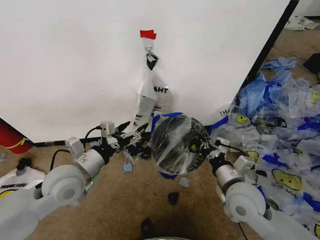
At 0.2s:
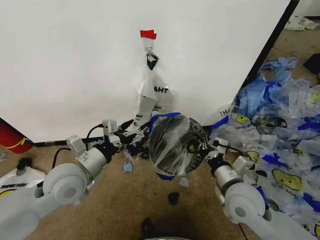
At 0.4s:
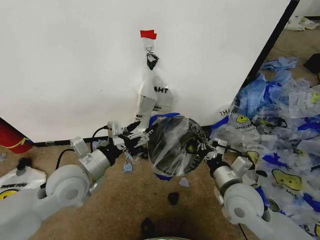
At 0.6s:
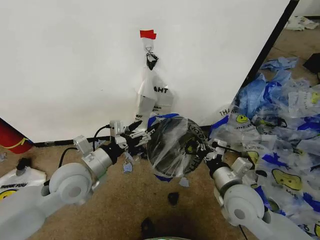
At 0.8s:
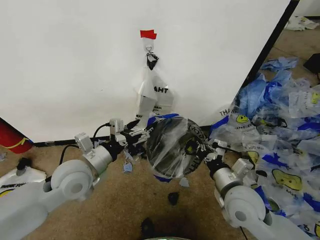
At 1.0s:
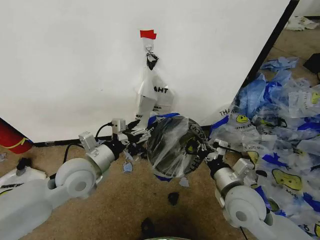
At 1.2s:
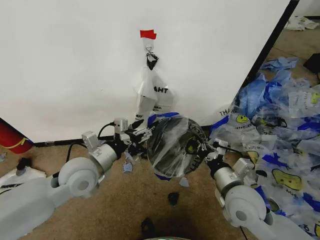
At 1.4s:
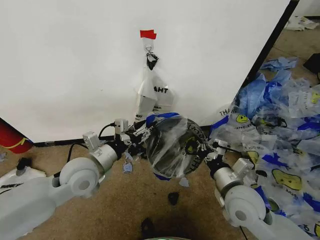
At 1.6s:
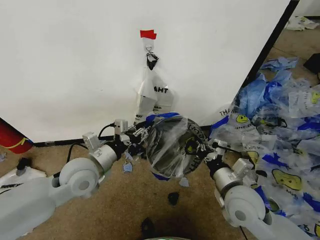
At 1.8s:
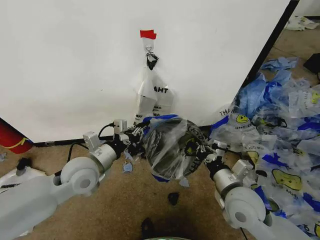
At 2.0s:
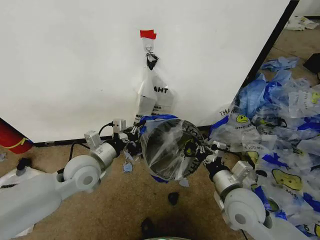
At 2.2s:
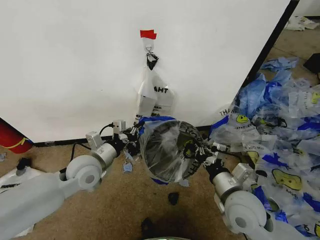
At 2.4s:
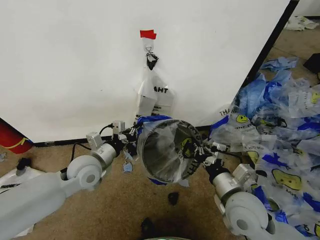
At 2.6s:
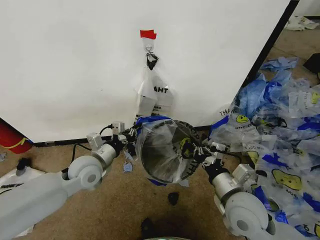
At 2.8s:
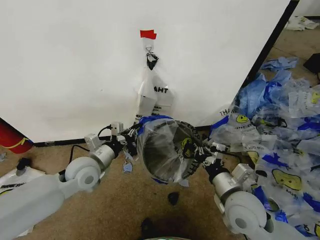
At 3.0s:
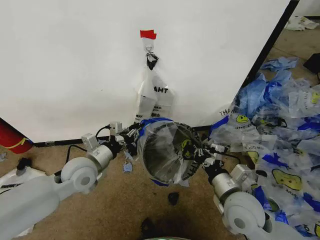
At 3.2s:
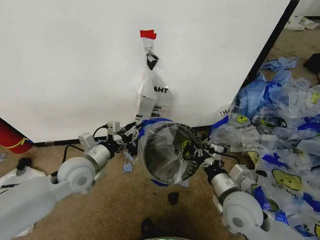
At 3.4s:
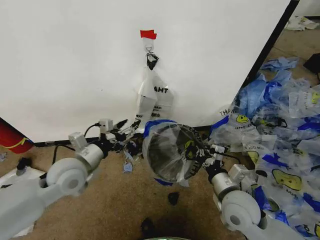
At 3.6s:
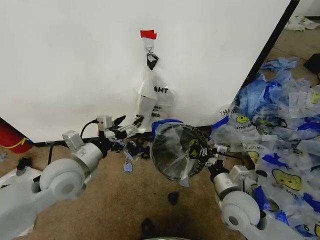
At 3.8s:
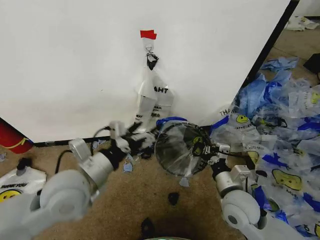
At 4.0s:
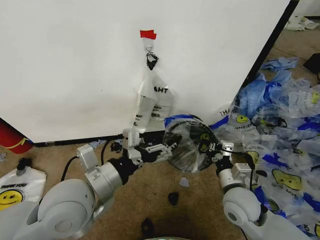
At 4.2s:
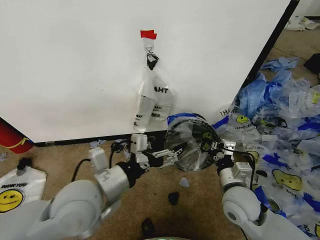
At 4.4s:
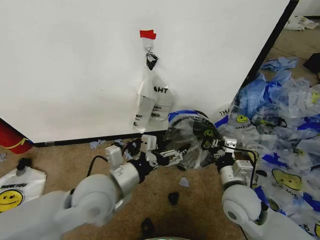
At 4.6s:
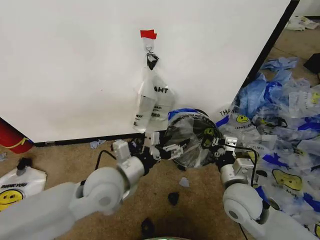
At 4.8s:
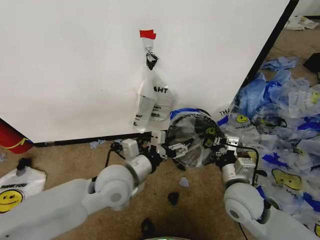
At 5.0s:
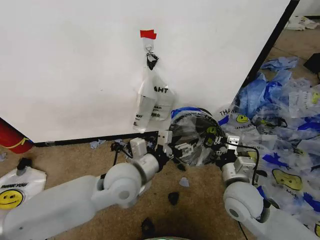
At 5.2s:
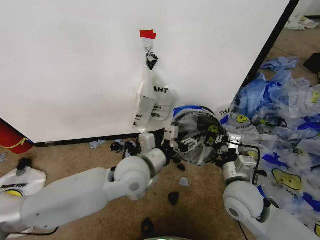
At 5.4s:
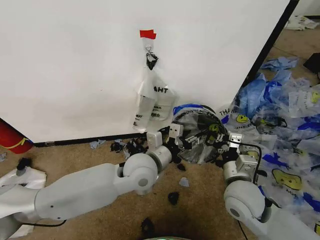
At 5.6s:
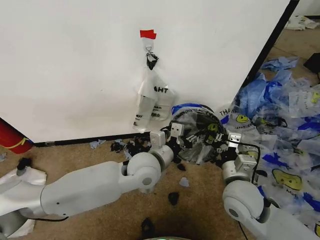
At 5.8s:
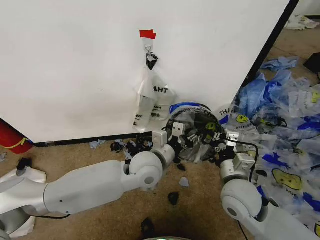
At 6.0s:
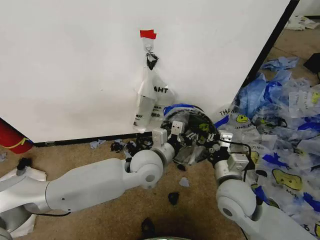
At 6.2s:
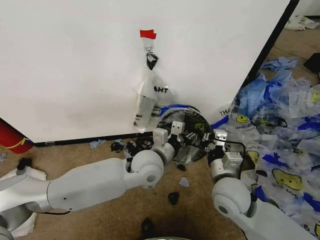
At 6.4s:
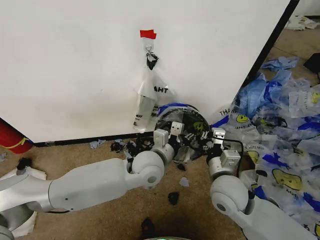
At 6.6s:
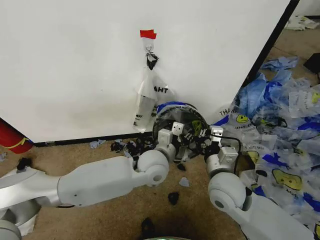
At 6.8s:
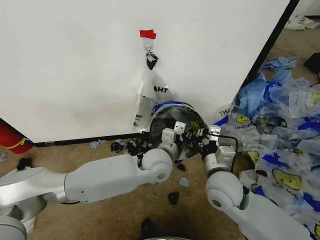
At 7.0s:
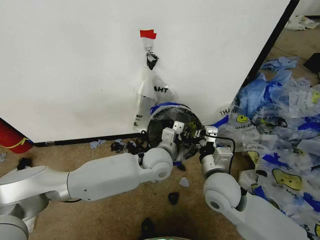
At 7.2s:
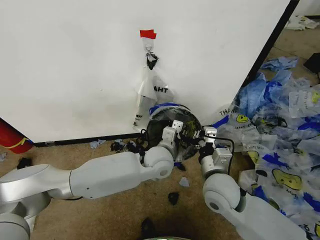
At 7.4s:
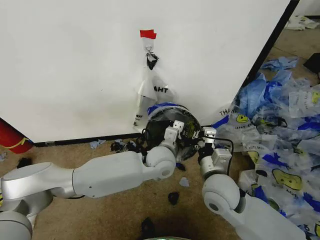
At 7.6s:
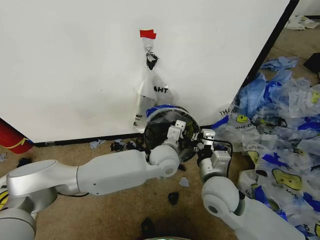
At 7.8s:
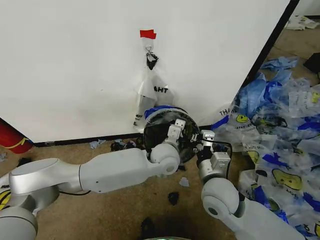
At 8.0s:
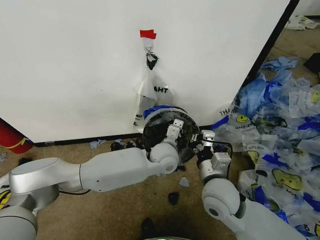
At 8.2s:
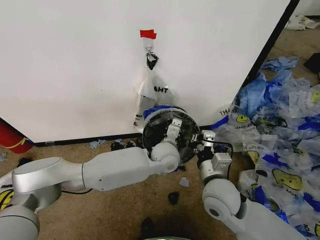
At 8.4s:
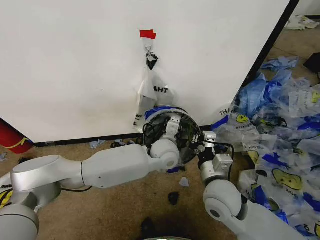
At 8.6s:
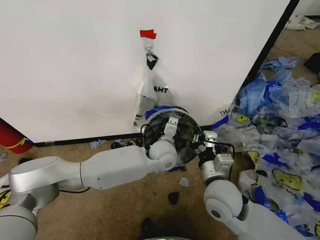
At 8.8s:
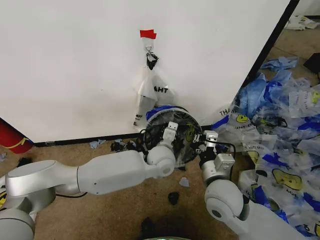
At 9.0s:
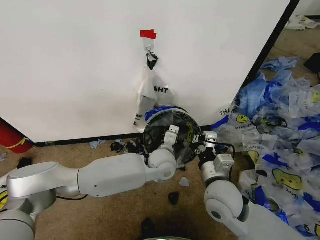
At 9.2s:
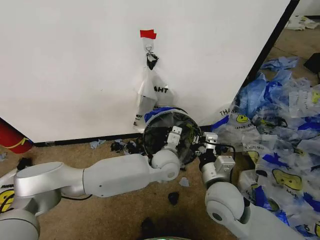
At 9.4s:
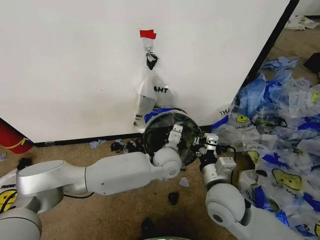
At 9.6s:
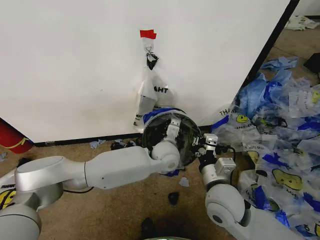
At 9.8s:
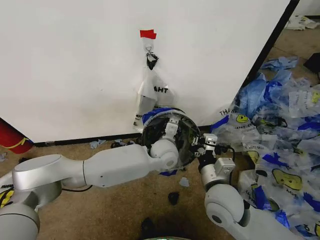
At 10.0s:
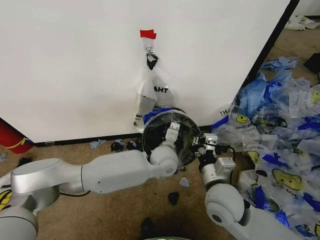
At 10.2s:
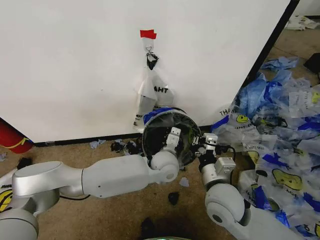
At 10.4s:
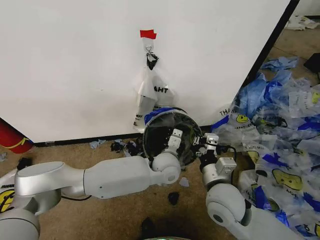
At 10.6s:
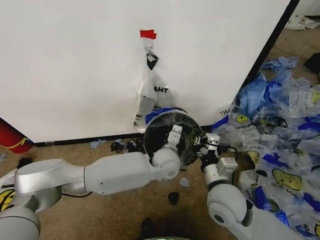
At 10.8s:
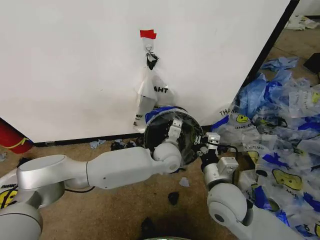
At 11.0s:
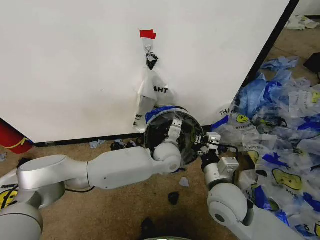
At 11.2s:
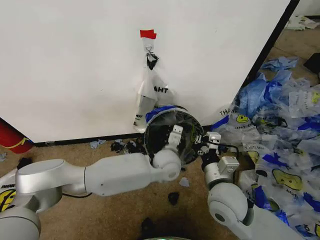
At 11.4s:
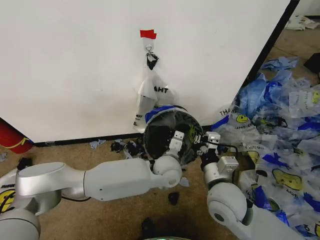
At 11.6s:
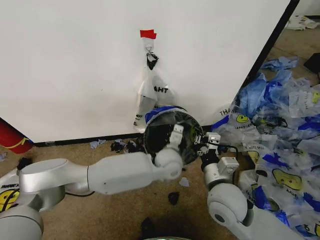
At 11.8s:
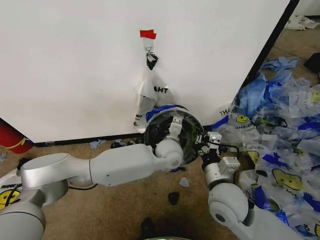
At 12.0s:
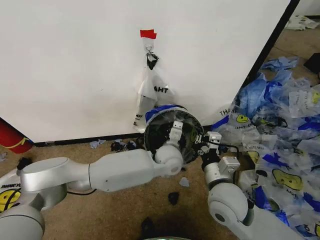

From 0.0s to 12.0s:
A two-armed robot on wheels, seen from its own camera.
Task of the whole recording: Pick up the garbage bag from the wall and place it over the trash bin.
From 0.0s to 1.6s: The left gripper closes its fingers.
From 1.6s to 3.0s: The grippers stay close to where they were, moving slightly.
From 3.0s to 4.4s: The left gripper goes about 15 cm to the right, backward and upward, and opens up.
From 4.4s to 6.0s: The left gripper heads to the right and forward, covering roughly 15 cm, and closes up.
From 6.0s to 7.6s: The left gripper shifts about 5 cm to the right.
From 7.6s to 12.0s: The grippers move only a little.

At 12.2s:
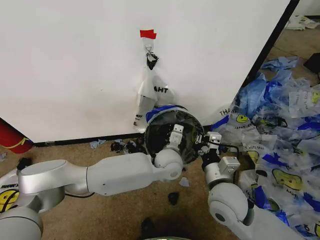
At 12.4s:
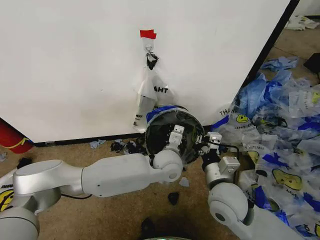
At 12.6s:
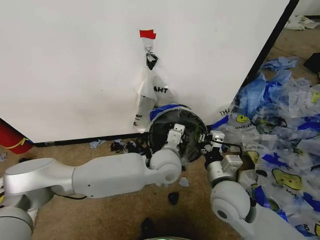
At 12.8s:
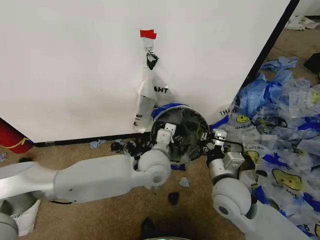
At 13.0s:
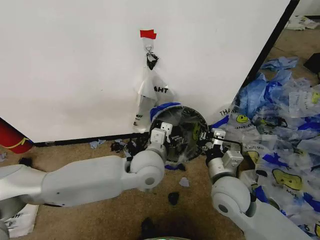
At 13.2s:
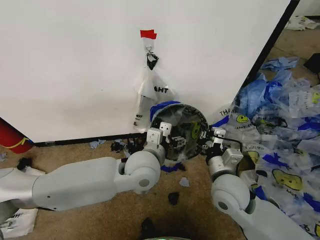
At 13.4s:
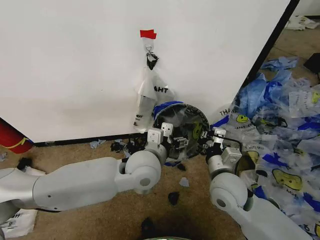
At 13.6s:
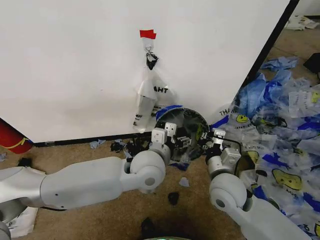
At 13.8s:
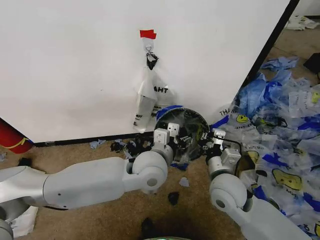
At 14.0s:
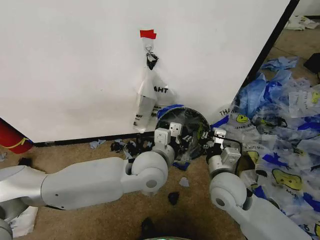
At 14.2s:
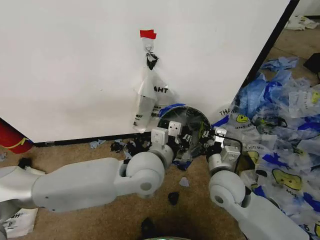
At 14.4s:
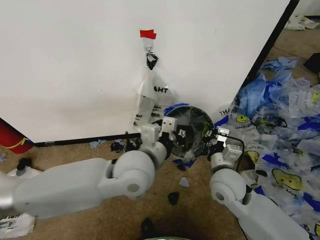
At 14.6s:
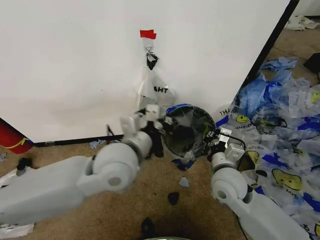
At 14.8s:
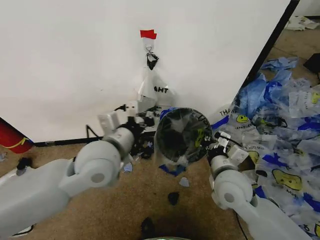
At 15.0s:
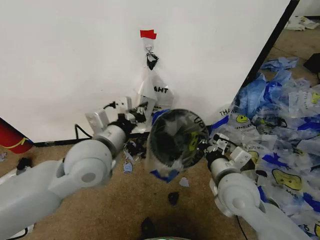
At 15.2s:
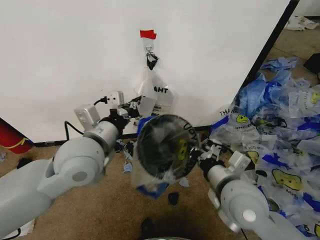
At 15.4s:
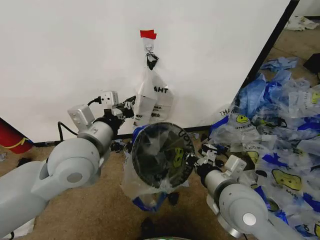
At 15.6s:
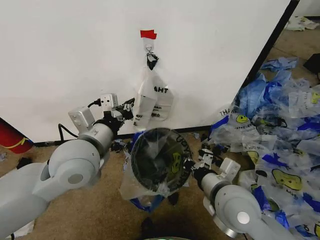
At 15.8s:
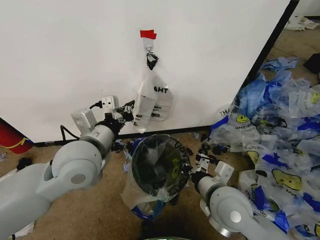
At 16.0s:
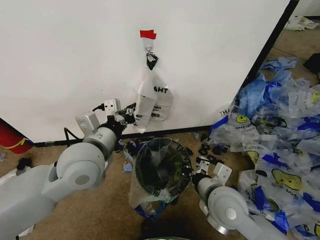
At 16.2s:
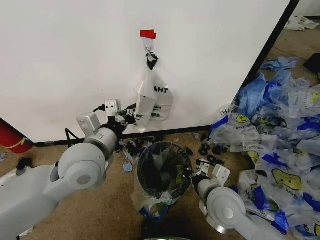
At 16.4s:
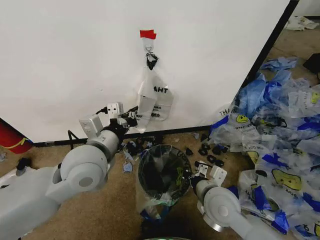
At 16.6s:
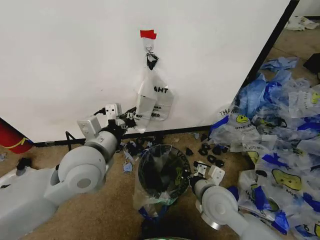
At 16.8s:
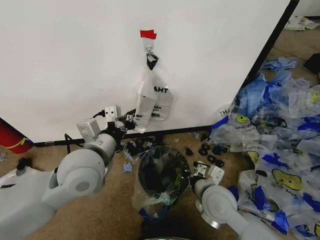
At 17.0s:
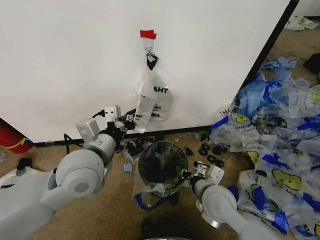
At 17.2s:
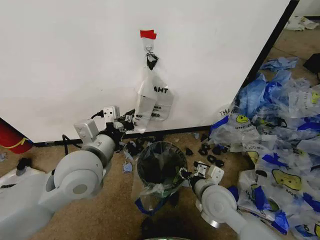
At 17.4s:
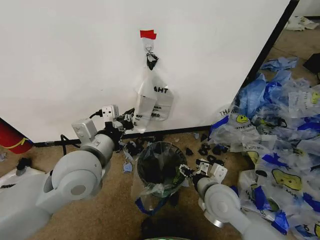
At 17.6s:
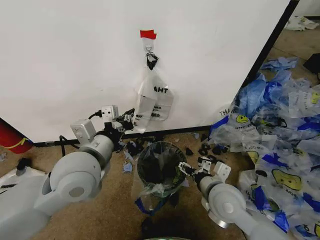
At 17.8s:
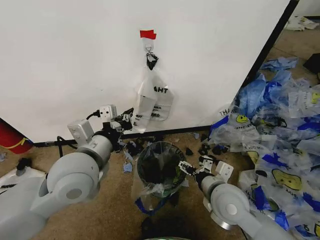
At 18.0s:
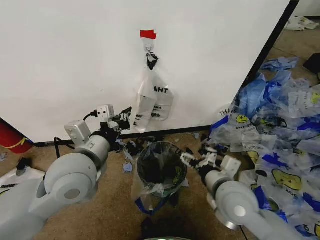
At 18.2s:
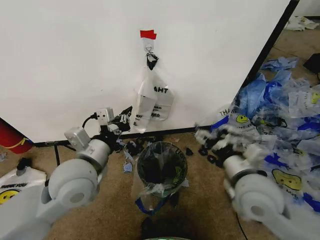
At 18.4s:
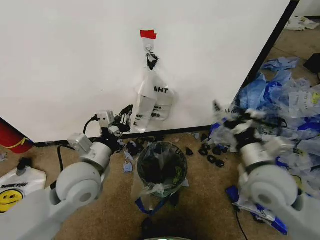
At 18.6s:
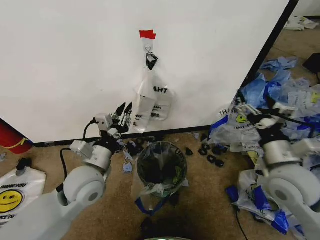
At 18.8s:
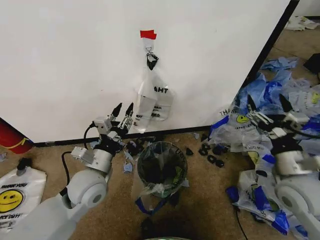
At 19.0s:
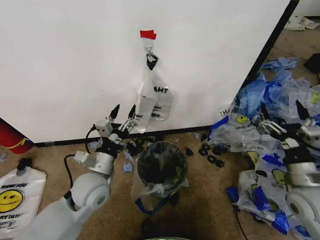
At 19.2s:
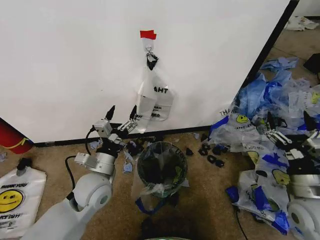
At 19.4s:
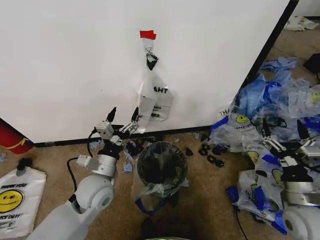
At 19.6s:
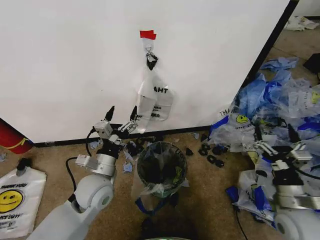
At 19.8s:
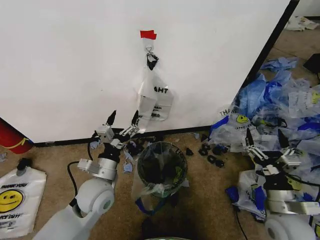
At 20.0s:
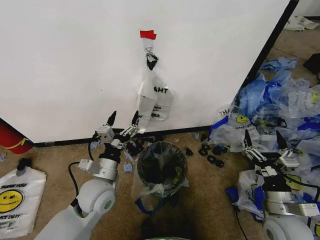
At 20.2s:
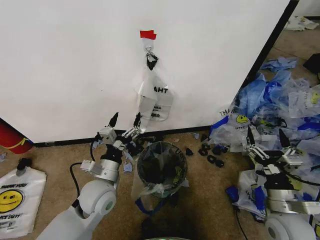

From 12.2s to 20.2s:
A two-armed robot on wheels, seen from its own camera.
Task of the whole recording: Pick up the garbage bag from the wall and place it over the trash bin.
From 12.2s to 13.8s: The left gripper travels upward, backward and to the left by some 10 cm, and opens its fingers.
From 13.8s to 15.4s: The left gripper shifts about 20 cm to the left and upward, and closes up, while the right gripper goes roughly 10 cm upward and backward.
From 15.4s to 17.0s: The right gripper moves downward, roughly 10 cm.
From 17.0s to 18.6s: The left gripper goes roughly 10 cm downward, while the right gripper travels to the right and upward by approximately 20 cm, and opens.
From 18.6s to 20.2s: The left gripper shifts roughly 5 cm downward, and opens. Meanwhile the right gripper shifts roughly 15 cm downward and backward.
